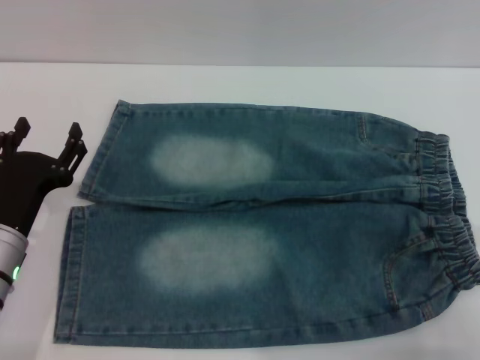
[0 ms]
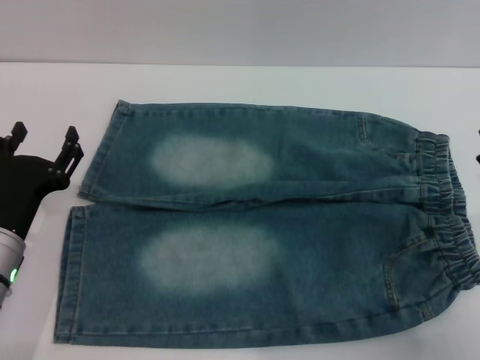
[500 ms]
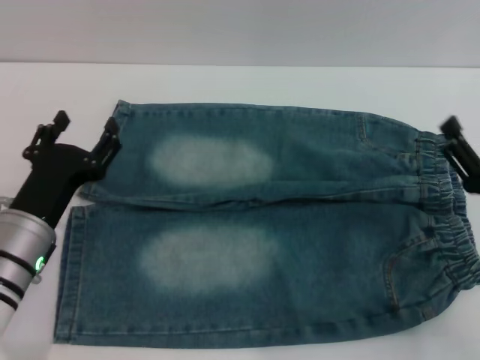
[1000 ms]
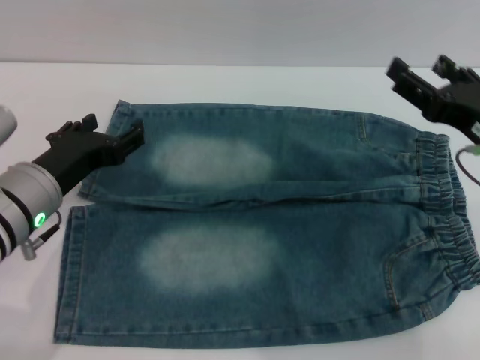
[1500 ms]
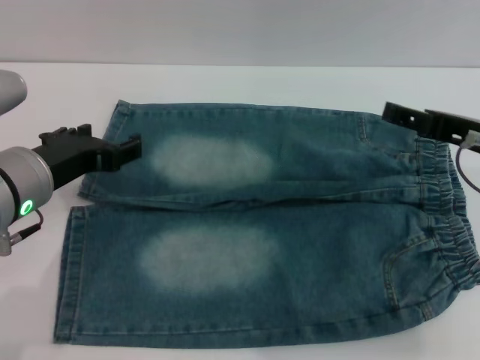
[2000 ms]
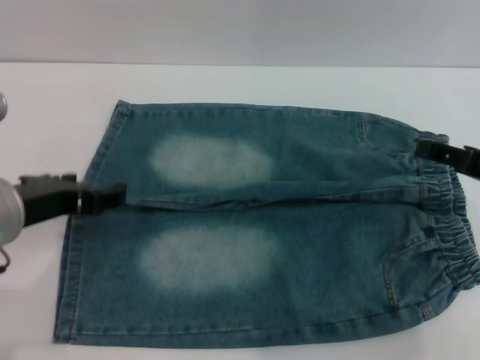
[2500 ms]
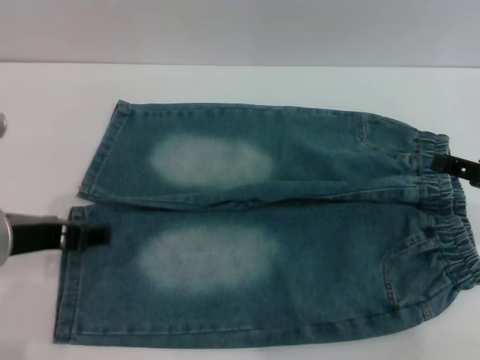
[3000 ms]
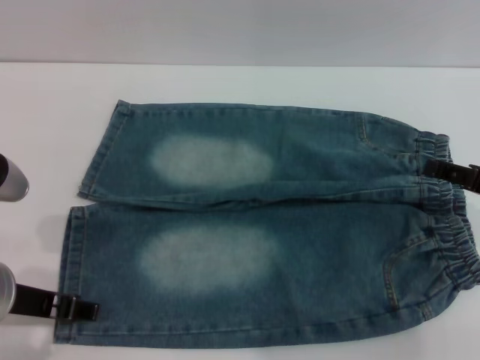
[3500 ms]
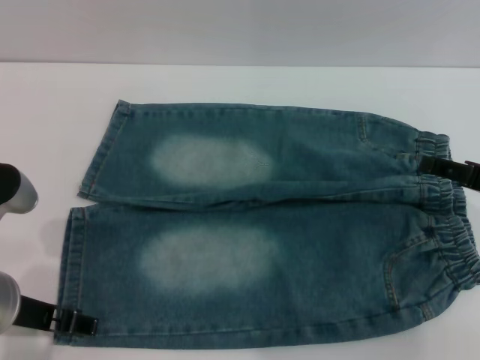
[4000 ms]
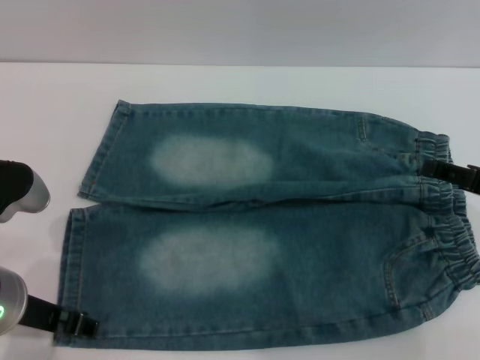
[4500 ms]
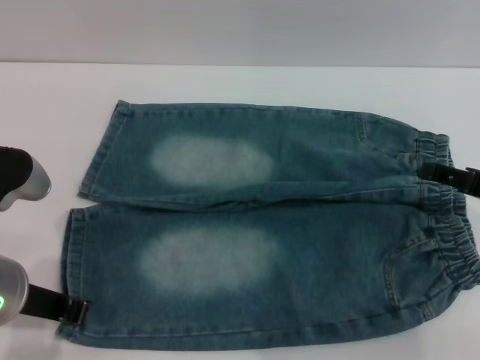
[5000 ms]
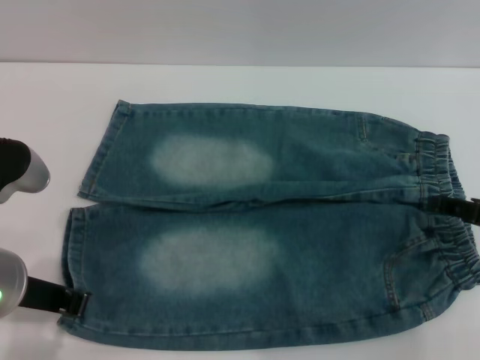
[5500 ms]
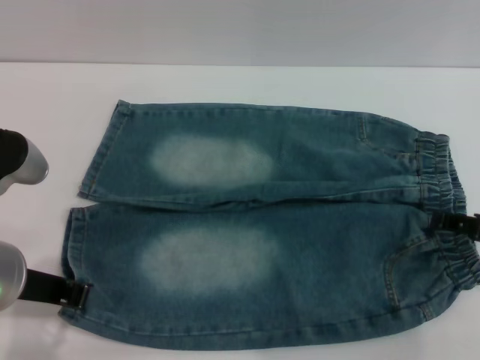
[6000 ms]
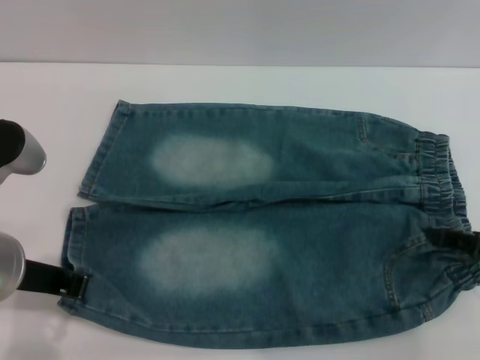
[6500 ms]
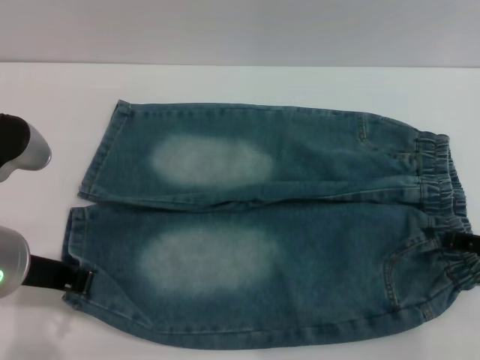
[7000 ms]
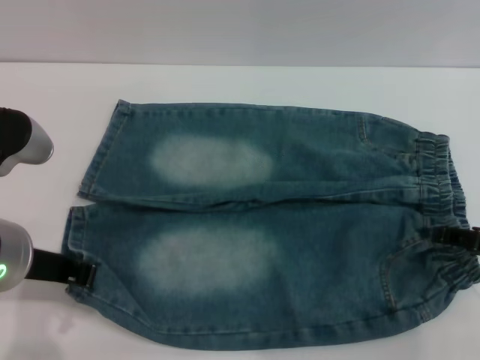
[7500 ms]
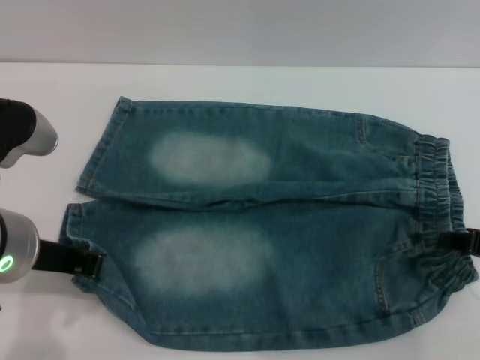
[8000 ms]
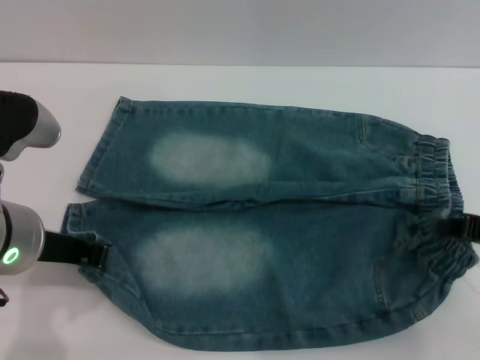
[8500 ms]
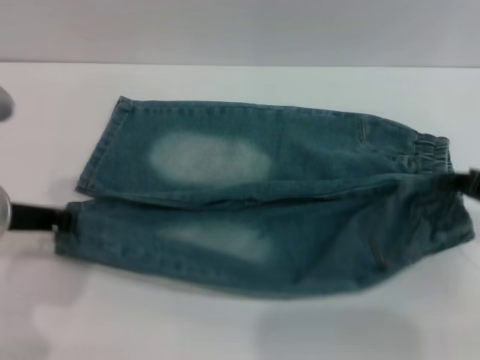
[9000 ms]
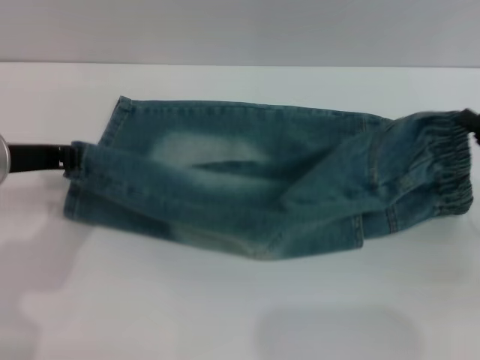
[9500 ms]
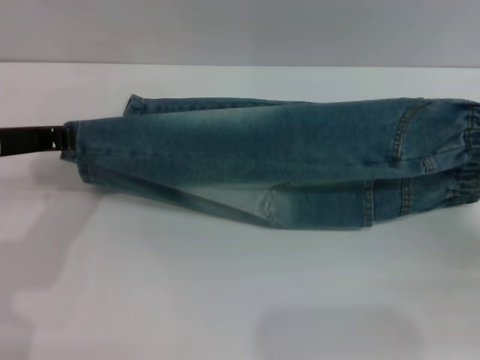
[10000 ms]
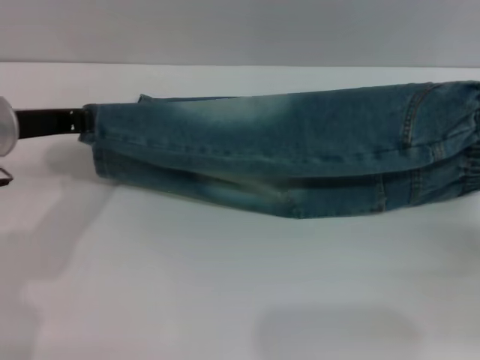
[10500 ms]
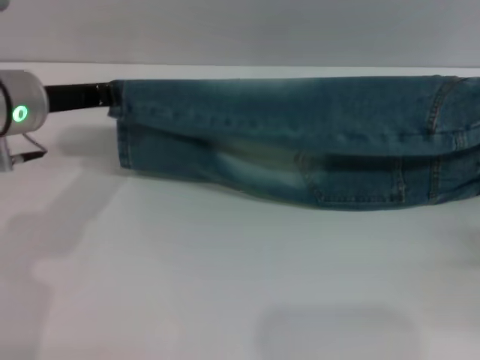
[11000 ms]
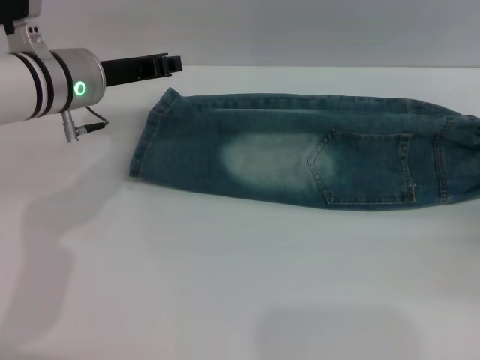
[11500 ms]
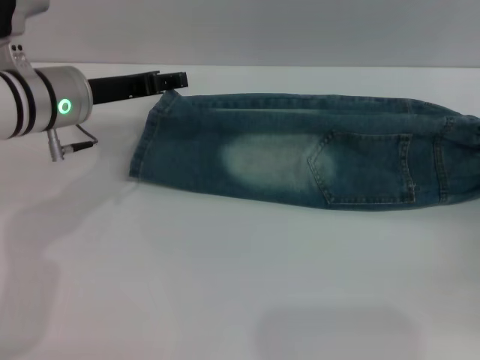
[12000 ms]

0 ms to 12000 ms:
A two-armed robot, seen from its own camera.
0 ms to 2000 ms: The left gripper travels upward by approximately 10 cm. The right gripper travels upward and forward by about 15 cm.
2000 ms to 4000 ms: The right gripper shifts by roughly 5 cm. Meanwhile the left gripper moves backward, roughly 5 cm.
4000 ms to 6000 ms: The left gripper closes its fingers.
6000 ms to 8000 ms: The right gripper closes its fingers.
8000 ms to 10000 ms: The left gripper moves forward, approximately 5 cm. Meanwhile the right gripper is displaced to the right by approximately 5 cm, and closes.
10000 ms to 12000 ms: The left gripper goes approximately 10 cm forward, and opens its fingers. The right gripper opens its fingers.

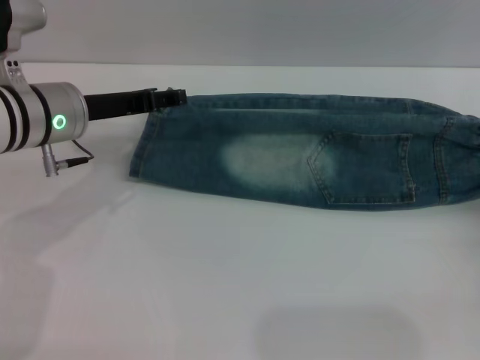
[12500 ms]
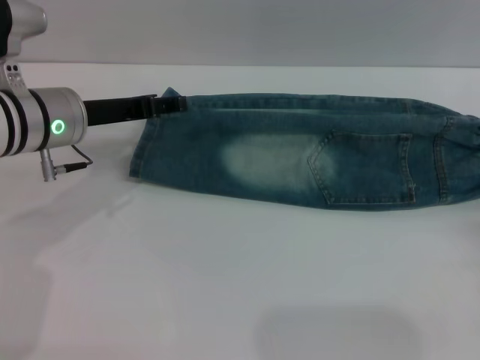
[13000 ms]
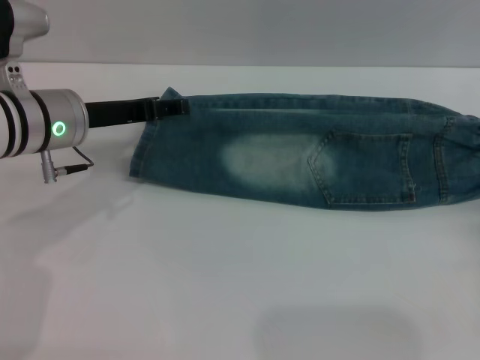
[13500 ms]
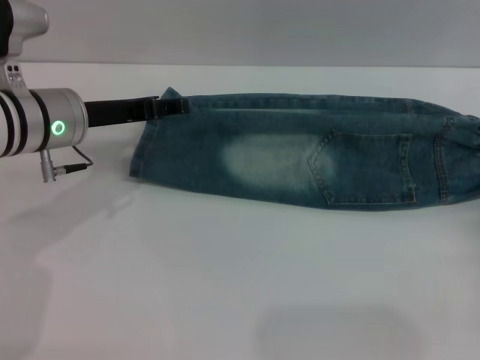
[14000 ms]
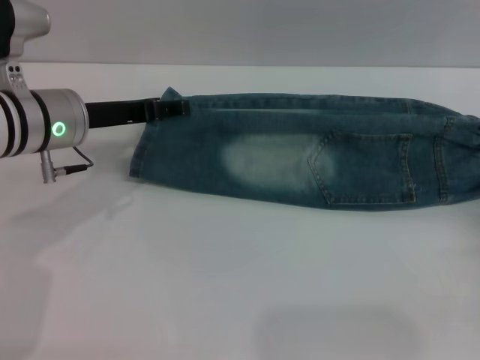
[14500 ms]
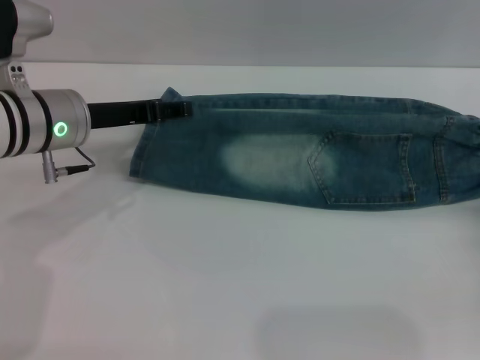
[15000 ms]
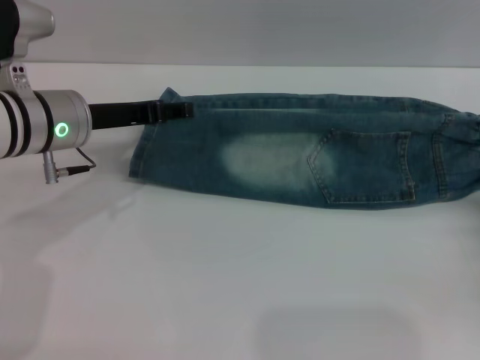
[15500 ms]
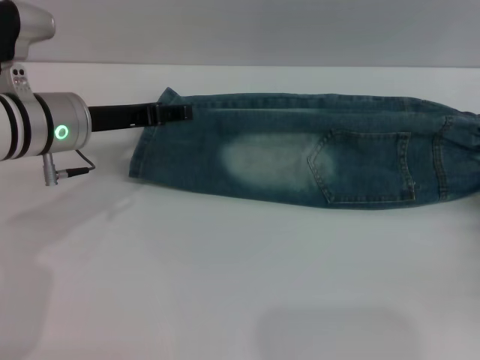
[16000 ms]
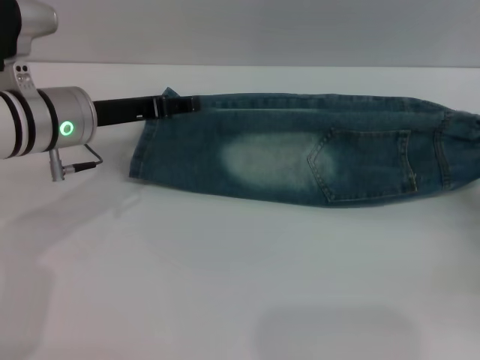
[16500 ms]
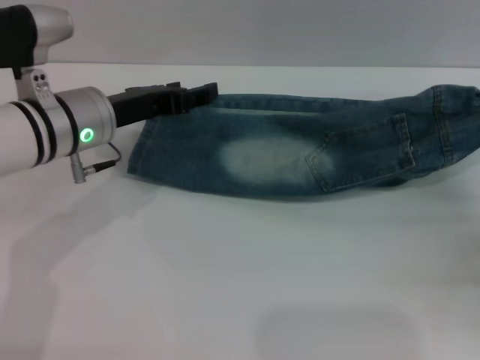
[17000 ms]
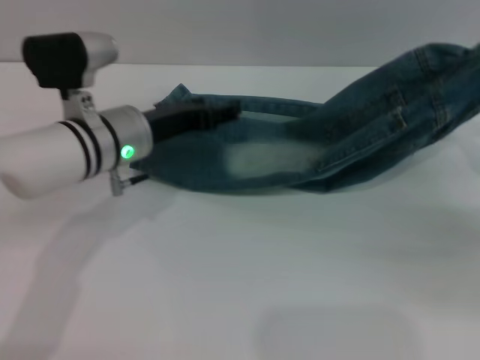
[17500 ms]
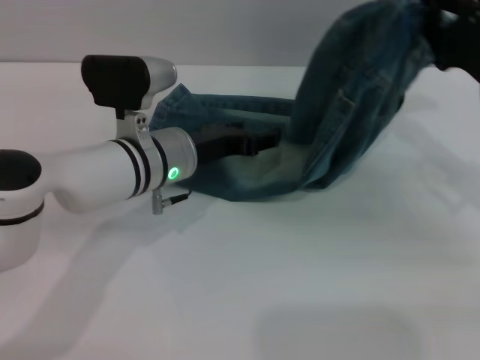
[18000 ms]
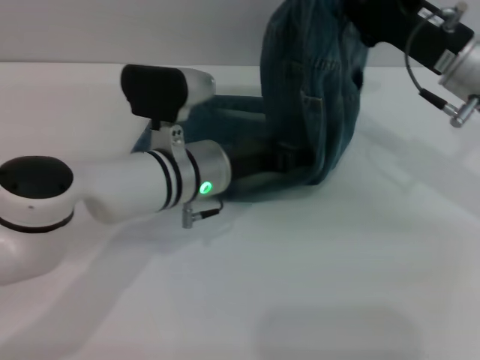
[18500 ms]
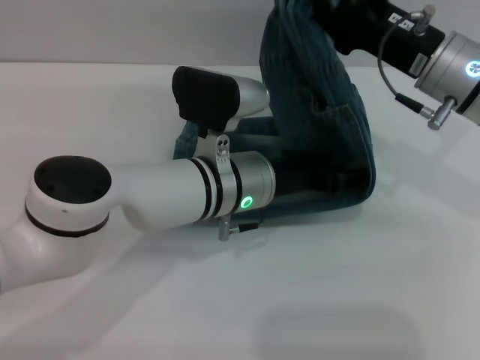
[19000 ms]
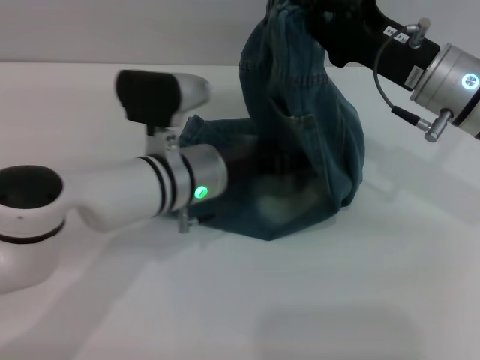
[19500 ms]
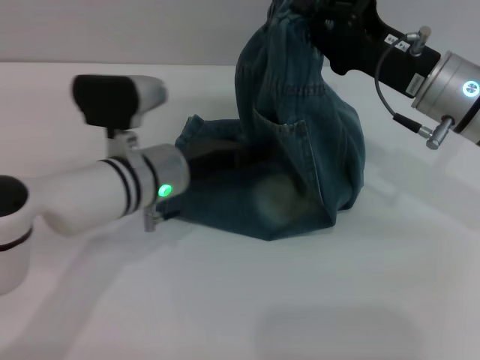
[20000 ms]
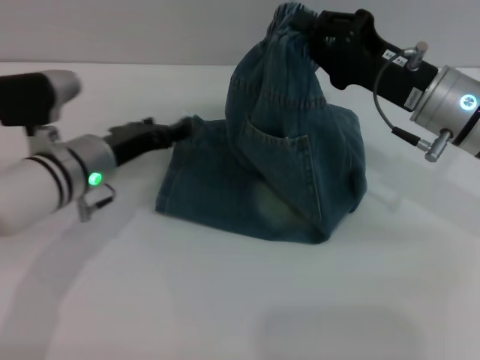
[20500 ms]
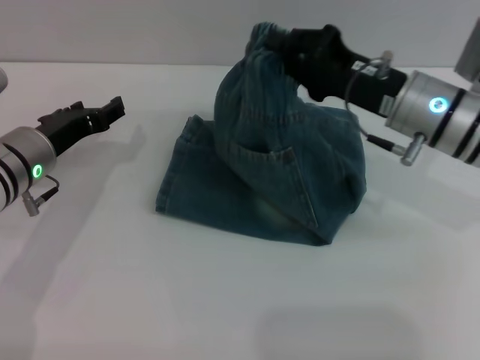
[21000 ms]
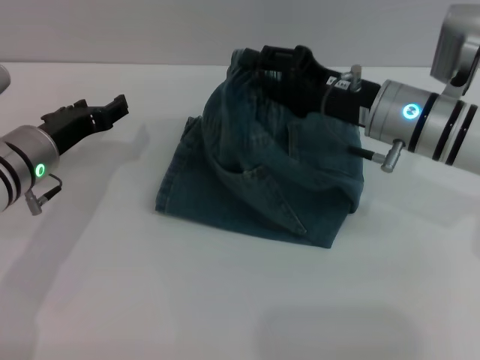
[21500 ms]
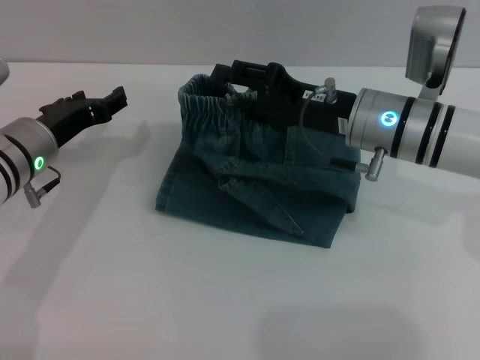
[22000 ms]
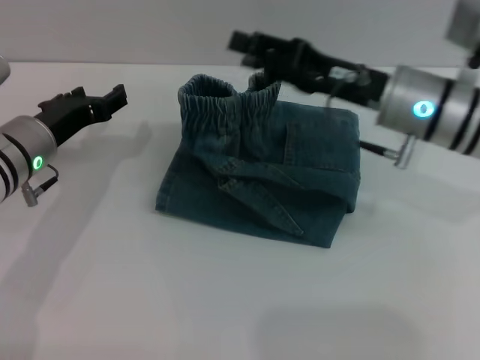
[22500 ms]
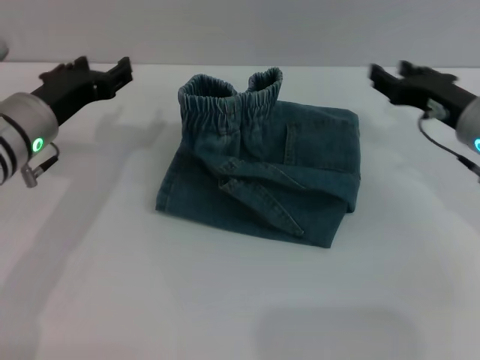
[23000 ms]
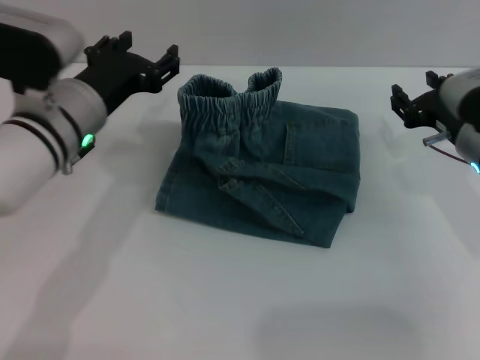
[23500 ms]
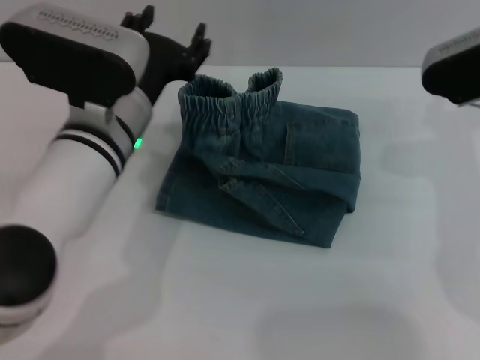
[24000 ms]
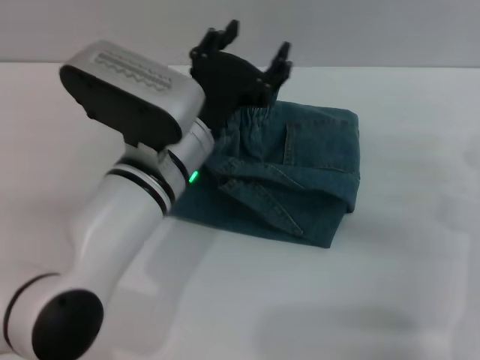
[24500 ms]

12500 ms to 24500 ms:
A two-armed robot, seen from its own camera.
Step, 14500 ms to 22500 ms: Fold the pants from right to left with the right gripper.
12500 ms to 14500 ms: The grippers stay close to where they were, moving slightly.
14500 ms to 16500 ms: The right gripper closes.
16500 ms to 18500 ms: The right gripper travels to the left, upward and forward by approximately 25 cm, while the left gripper heads to the right and downward, covering about 15 cm.
18500 ms to 20500 ms: The left gripper is displaced to the left by approximately 10 cm.
20500 ms to 22500 ms: The right gripper opens.
22500 ms to 24500 ms: The right gripper goes approximately 15 cm to the right, downward and backward; the left gripper travels to the right by some 15 cm.

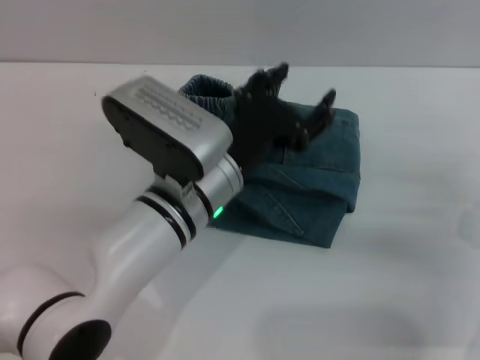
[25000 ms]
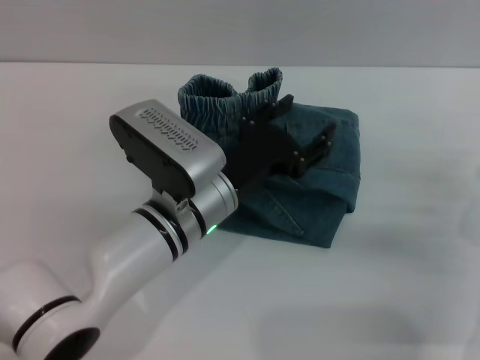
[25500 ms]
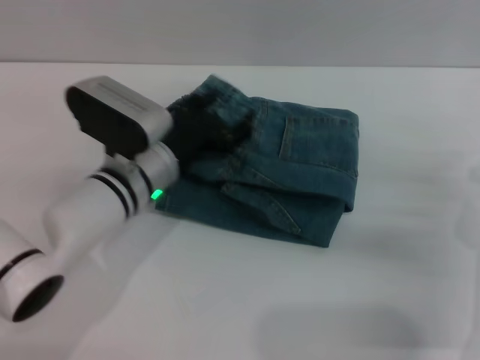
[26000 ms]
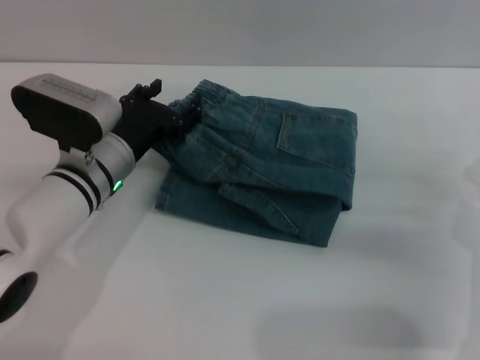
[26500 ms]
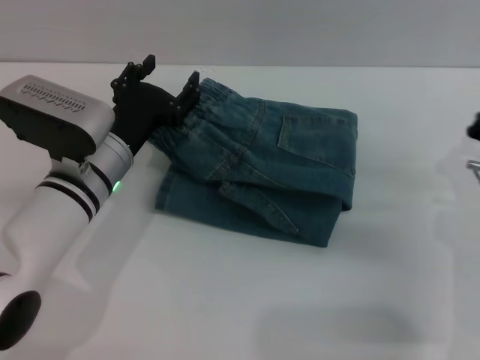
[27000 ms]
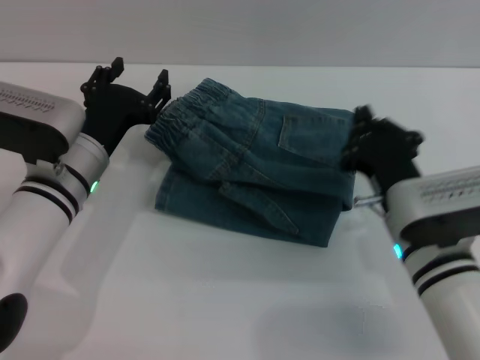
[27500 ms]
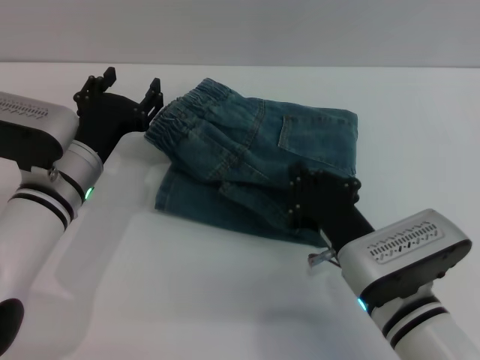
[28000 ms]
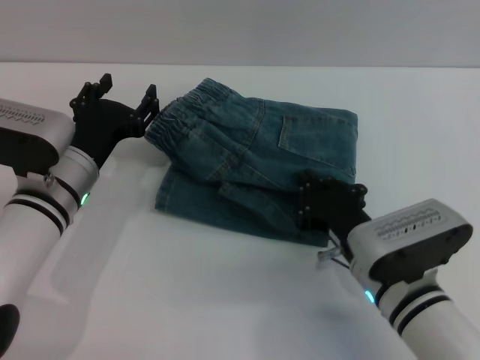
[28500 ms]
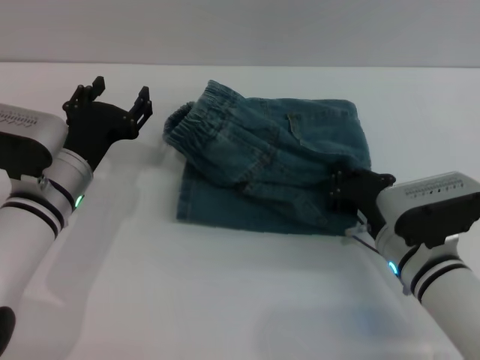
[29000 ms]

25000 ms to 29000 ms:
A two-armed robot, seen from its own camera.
25000 ms to 27000 ms: The left gripper heads to the left, covering some 10 cm.
27000 ms to 29000 ms: The right gripper goes some 5 cm to the left.
